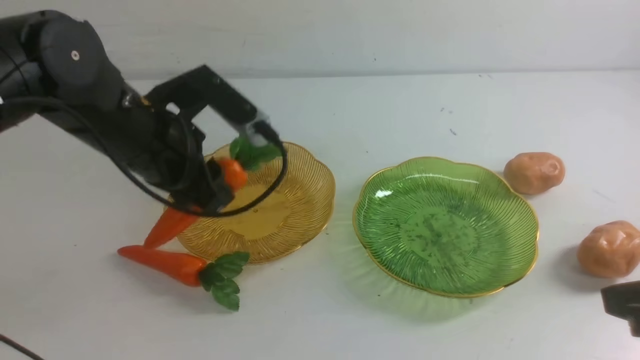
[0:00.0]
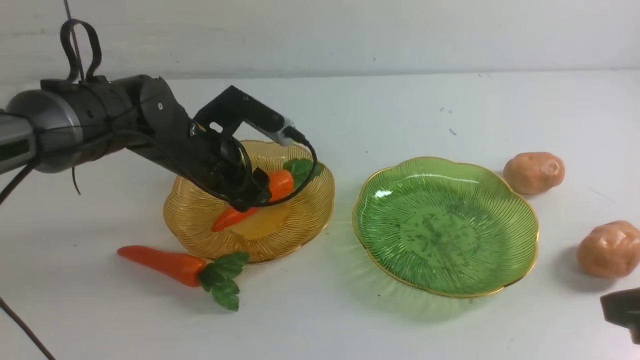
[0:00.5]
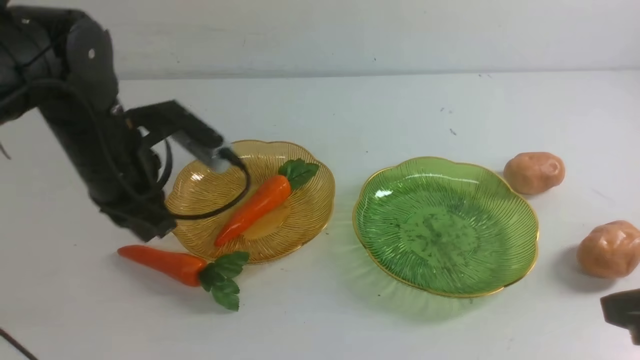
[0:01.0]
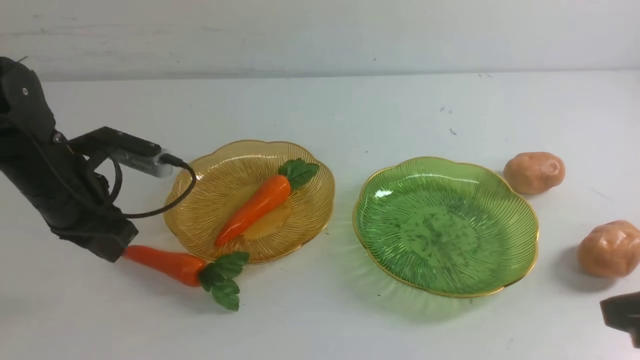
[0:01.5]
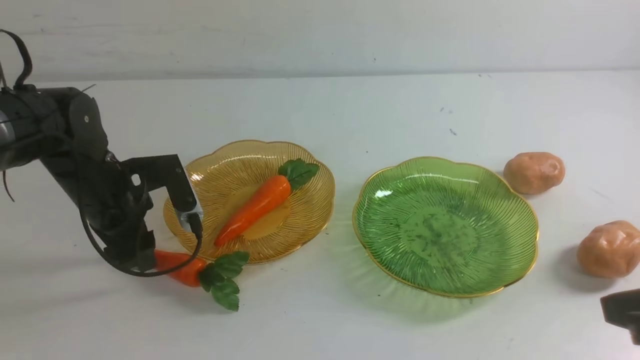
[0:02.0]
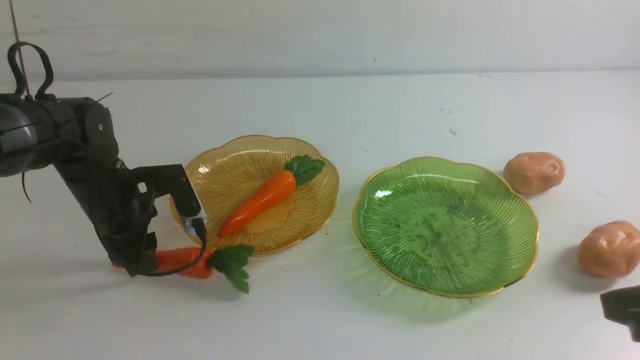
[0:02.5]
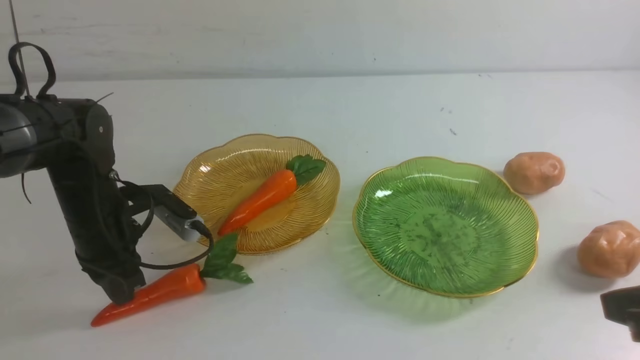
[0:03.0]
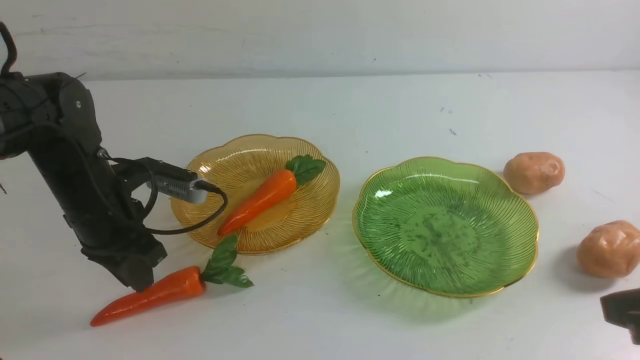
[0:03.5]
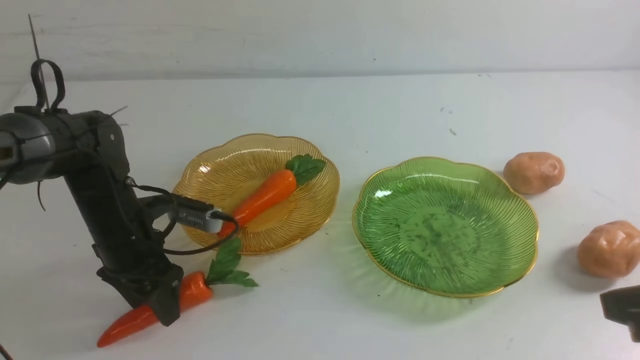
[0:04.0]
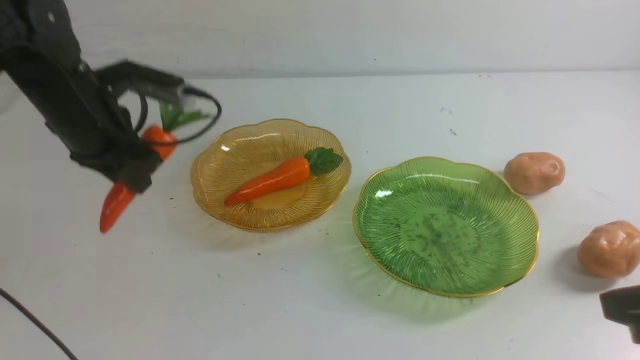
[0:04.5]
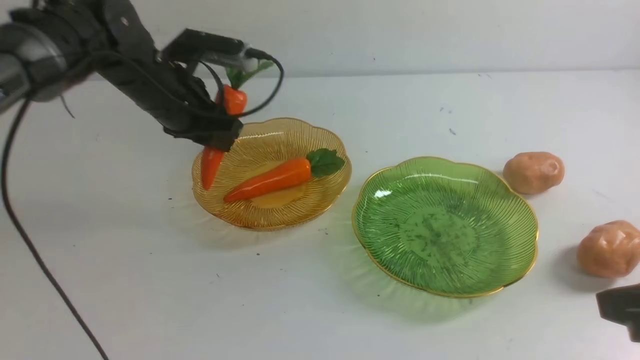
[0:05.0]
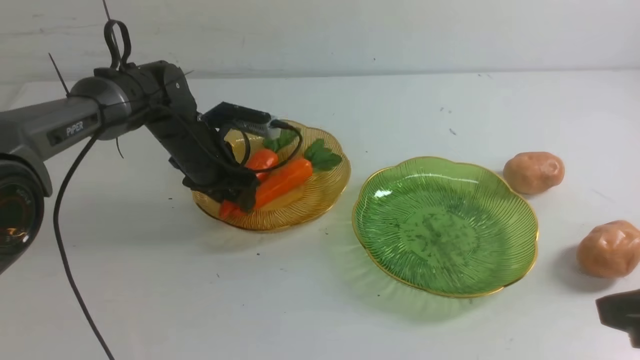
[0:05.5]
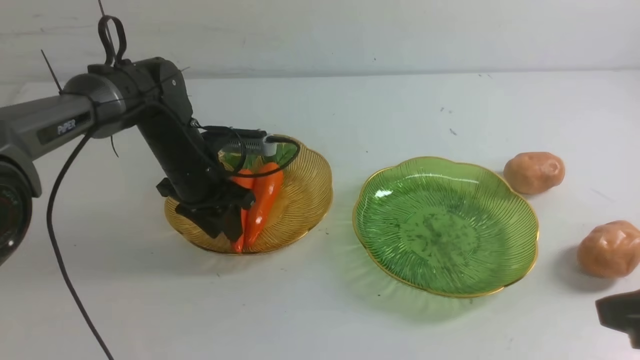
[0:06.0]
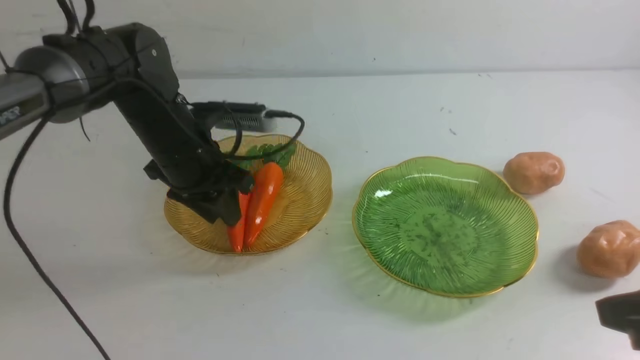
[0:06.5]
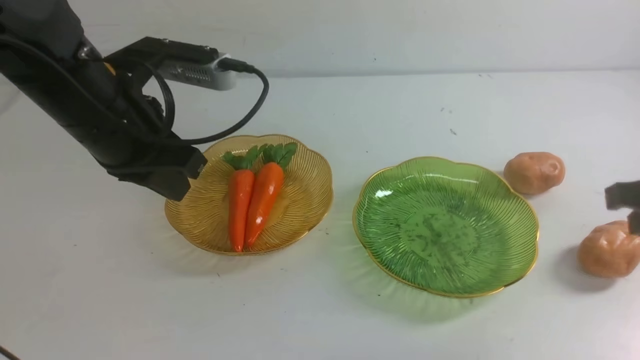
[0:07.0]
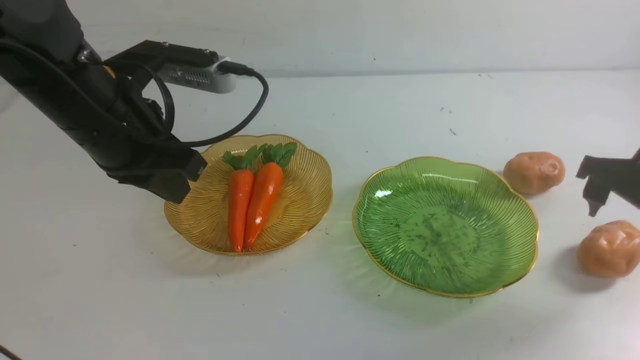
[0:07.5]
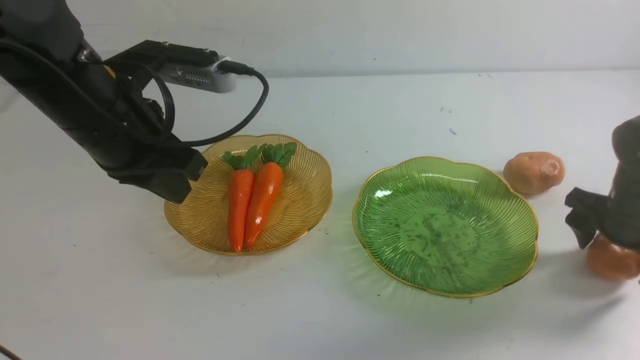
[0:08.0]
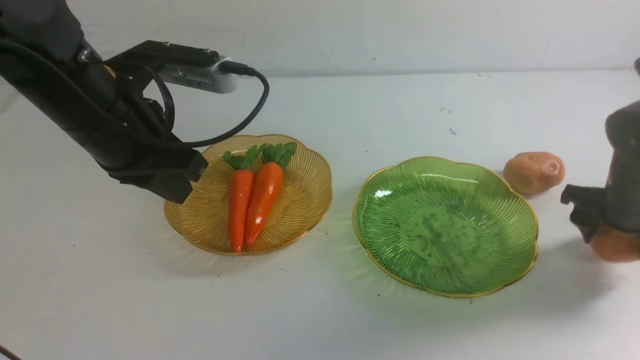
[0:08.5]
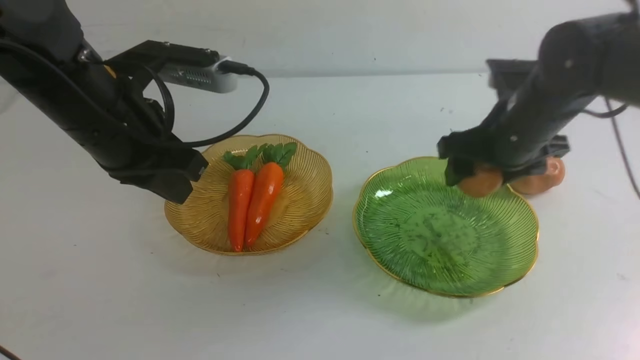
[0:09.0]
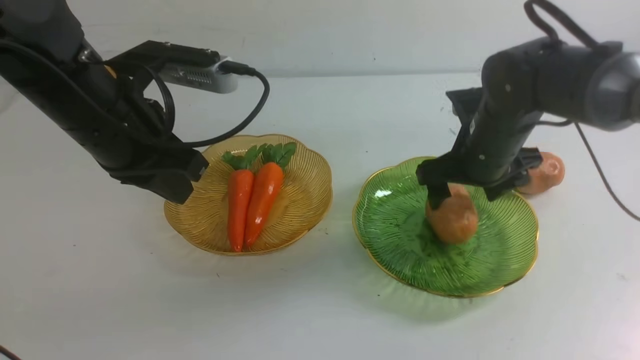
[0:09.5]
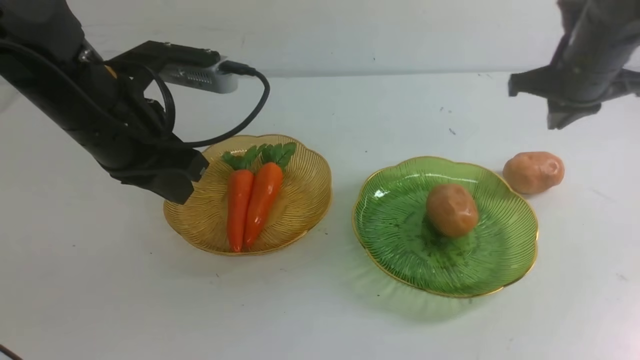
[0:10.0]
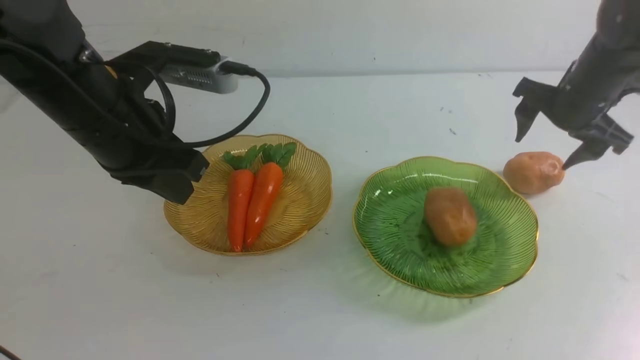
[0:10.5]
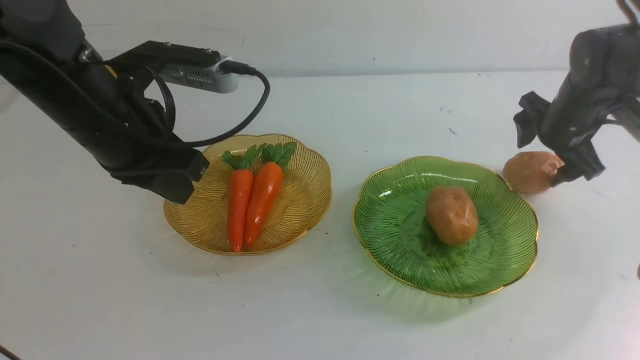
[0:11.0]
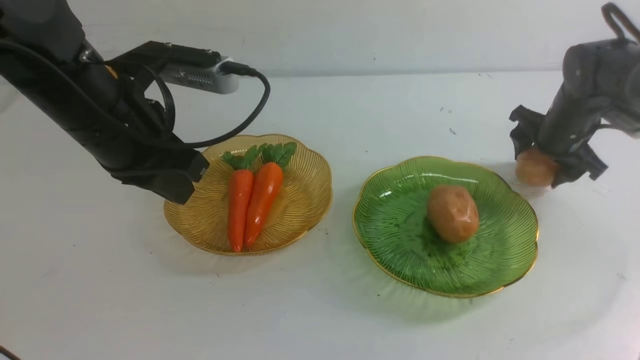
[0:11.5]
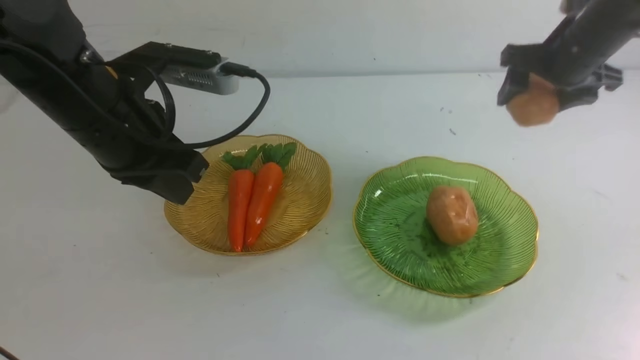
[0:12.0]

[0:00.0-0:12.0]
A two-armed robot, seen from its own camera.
Step, 0:00.0 to 0:05.0: use the left arm to grab a carrot and put it into the left plate.
0:00.0 to 0:02.0: The left gripper shifts roughly 10 cm downward and to the left, and closes, then reopens.
0:02.0 to 0:04.0: The left gripper closes, then reopens.
0:04.0 to 0:06.0: The left gripper shifts some 10 cm forward and to the right, and travels upward and back again, roughly 10 cm each way.
0:06.0 to 0:08.0: The left gripper travels upward and backward by some 20 cm, and closes up, while the right gripper heads forward and downward, covering approximately 25 cm, and opens.
0:08.0 to 0:10.0: The right gripper travels upward, forward and to the left by some 15 cm, and closes.
0:10.0 to 0:12.0: The right gripper moves roughly 10 cm downward and comes back, and opens its fingers.

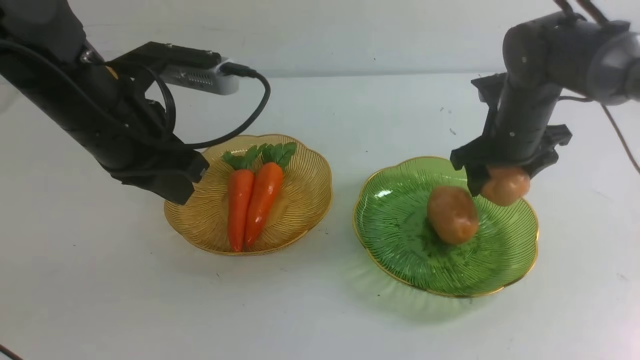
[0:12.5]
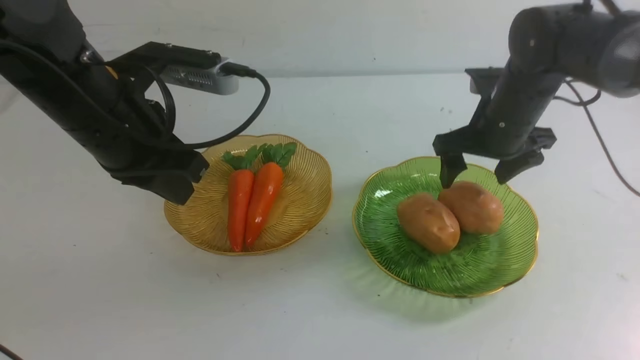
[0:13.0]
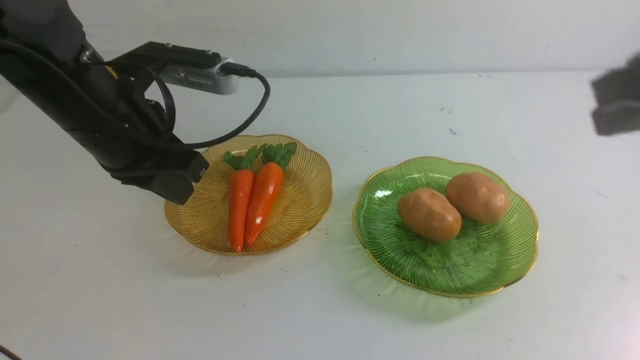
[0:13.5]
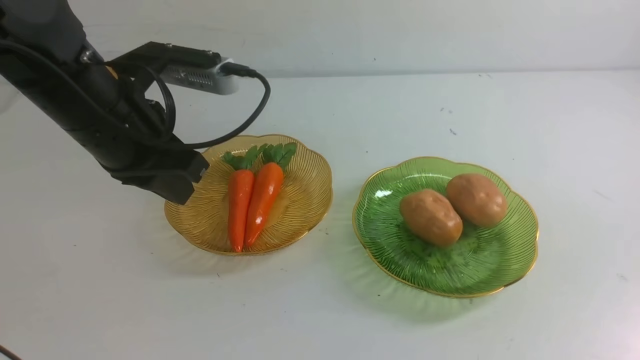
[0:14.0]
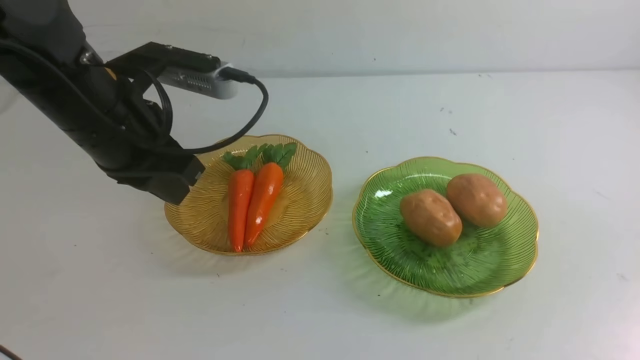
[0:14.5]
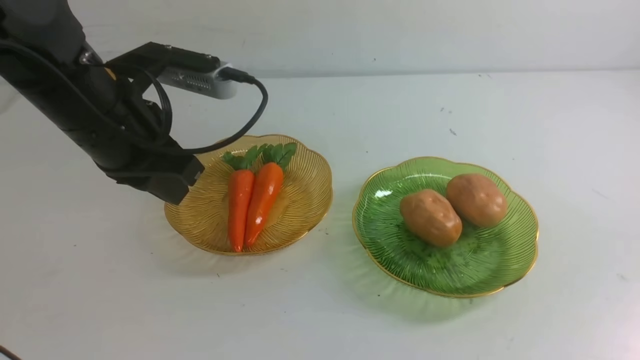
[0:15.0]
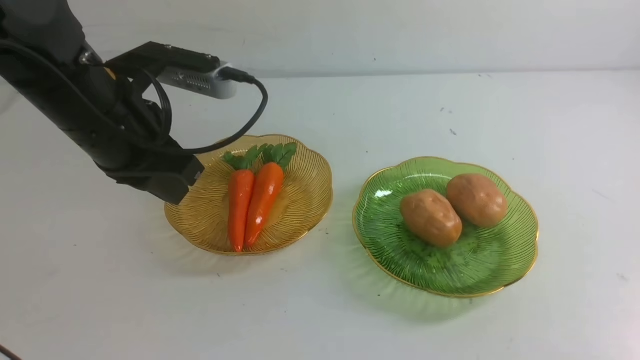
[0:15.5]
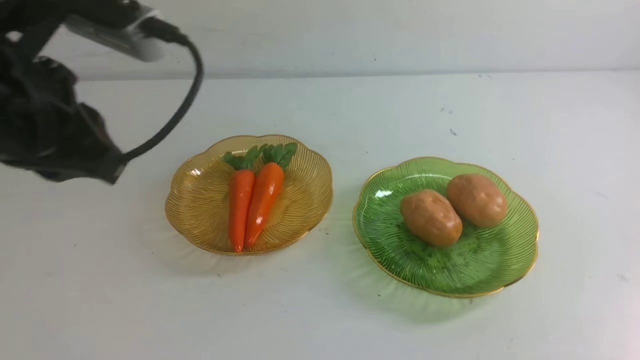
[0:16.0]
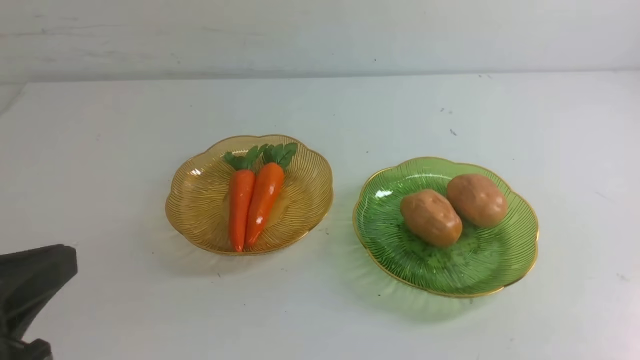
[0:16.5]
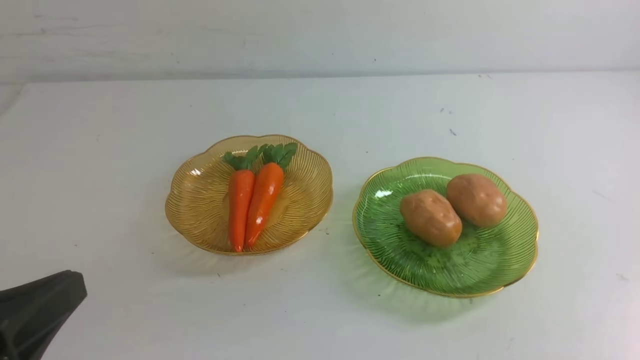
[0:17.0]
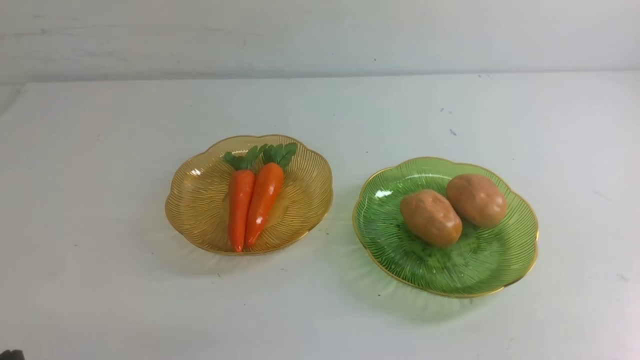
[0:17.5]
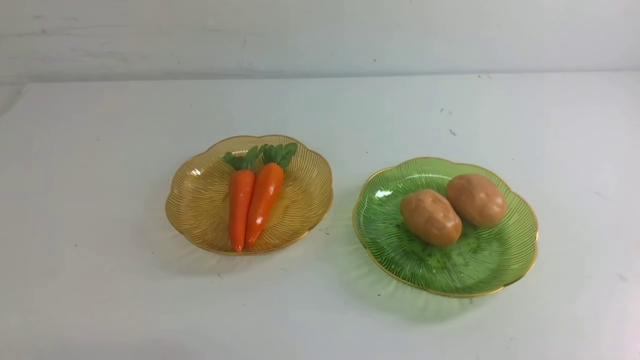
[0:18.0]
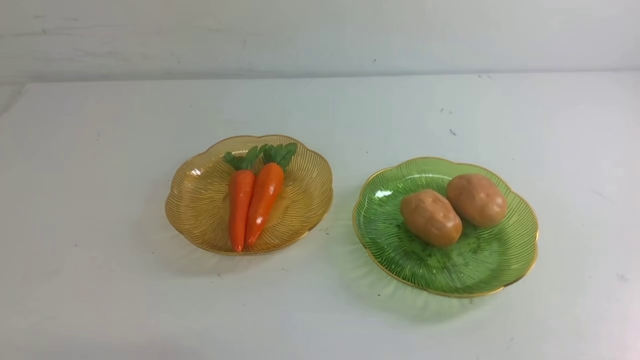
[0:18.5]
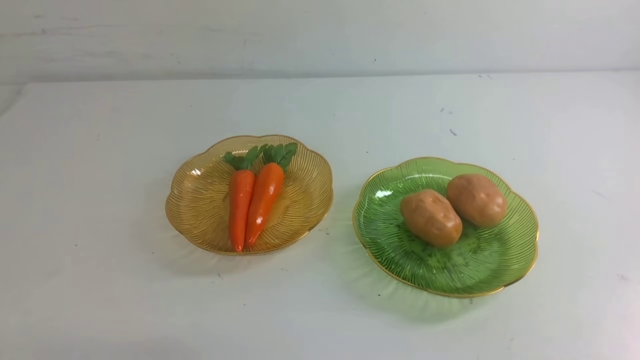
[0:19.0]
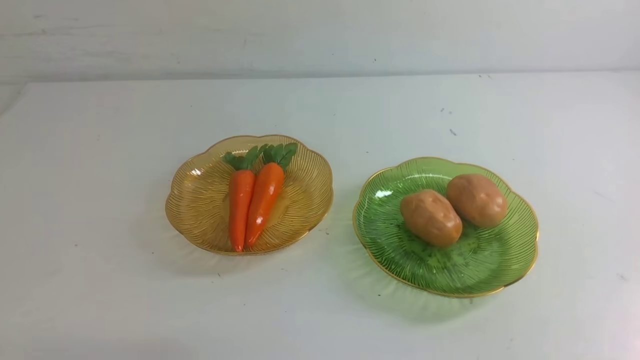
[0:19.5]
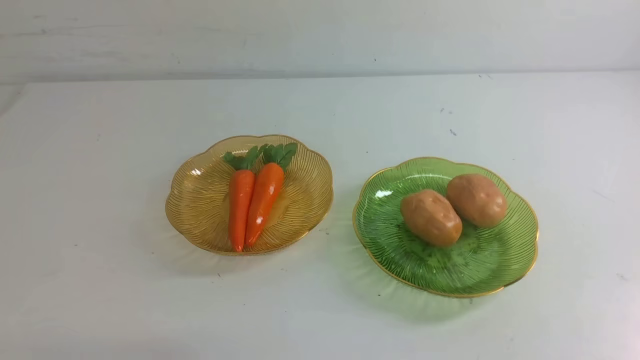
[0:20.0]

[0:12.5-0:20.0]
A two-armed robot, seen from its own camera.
0:12.5 to 0:14.5: The right gripper moves backward, about 35 cm, and closes up.
0:14.5 to 0:16.5: The left gripper goes roughly 20 cm backward. Meanwhile the right gripper heads downward, covering approximately 15 cm.
0:16.5 to 0:18.0: The left gripper heads downward, covering about 15 cm.
0:18.0 to 0:20.0: The two grippers keep their place.
